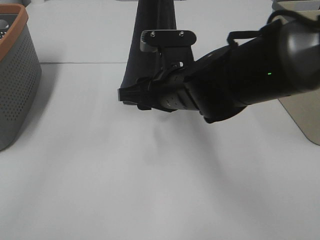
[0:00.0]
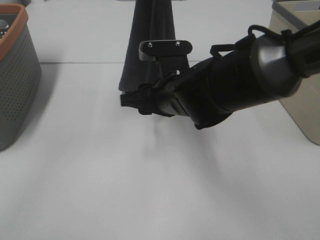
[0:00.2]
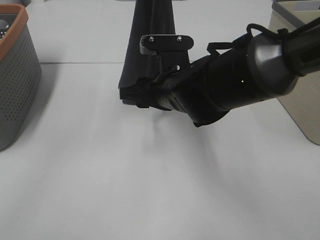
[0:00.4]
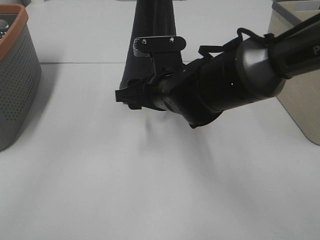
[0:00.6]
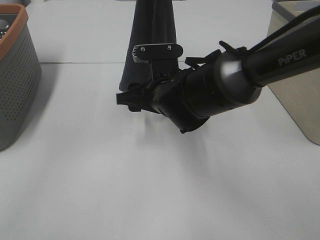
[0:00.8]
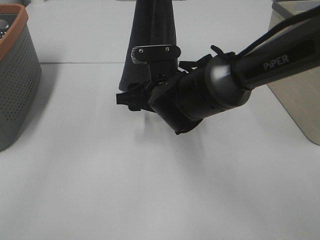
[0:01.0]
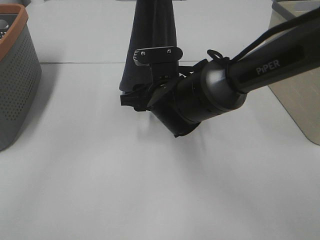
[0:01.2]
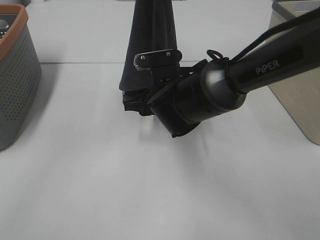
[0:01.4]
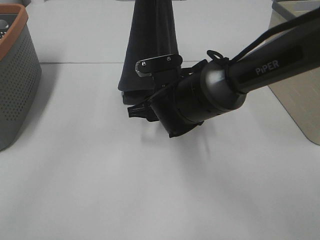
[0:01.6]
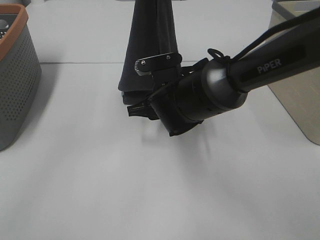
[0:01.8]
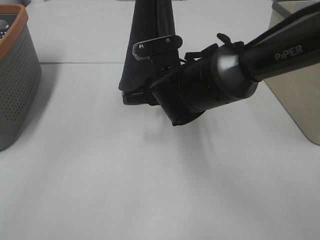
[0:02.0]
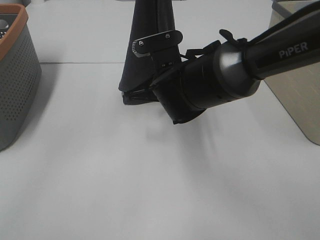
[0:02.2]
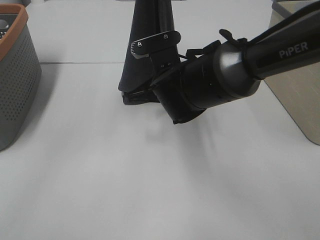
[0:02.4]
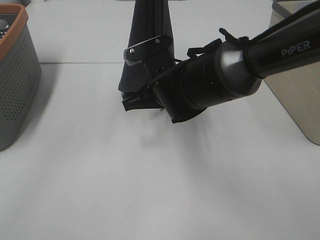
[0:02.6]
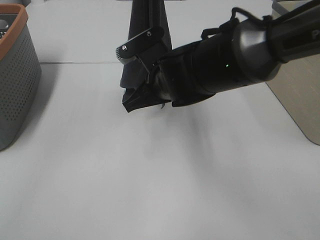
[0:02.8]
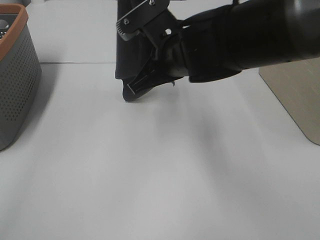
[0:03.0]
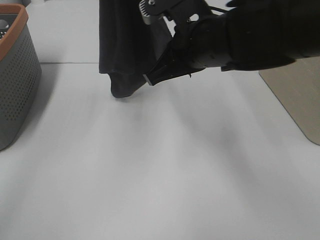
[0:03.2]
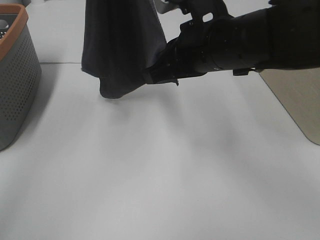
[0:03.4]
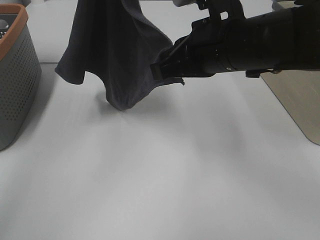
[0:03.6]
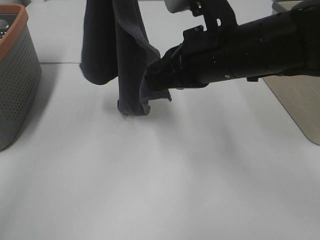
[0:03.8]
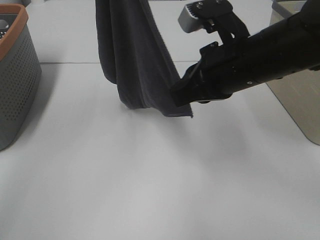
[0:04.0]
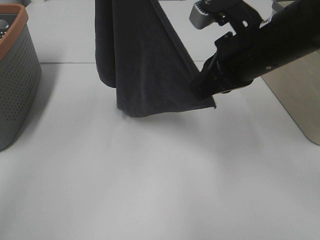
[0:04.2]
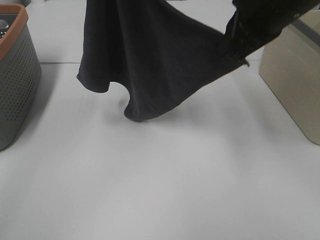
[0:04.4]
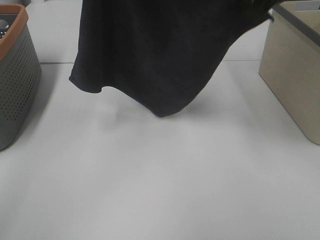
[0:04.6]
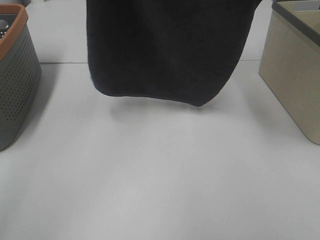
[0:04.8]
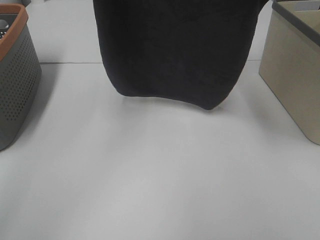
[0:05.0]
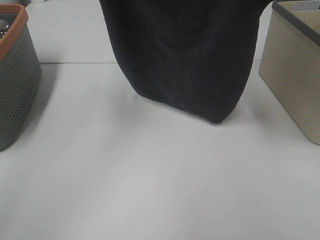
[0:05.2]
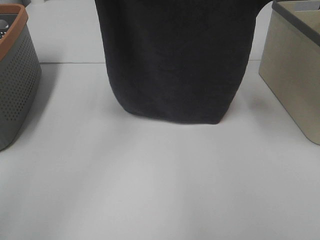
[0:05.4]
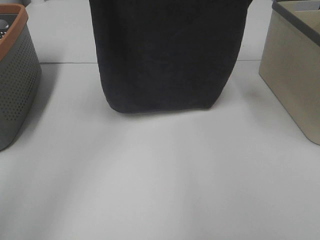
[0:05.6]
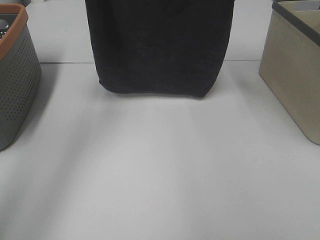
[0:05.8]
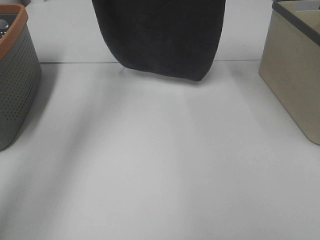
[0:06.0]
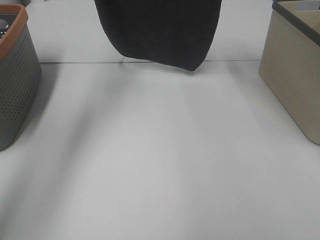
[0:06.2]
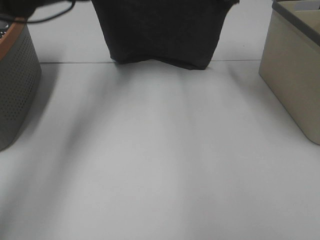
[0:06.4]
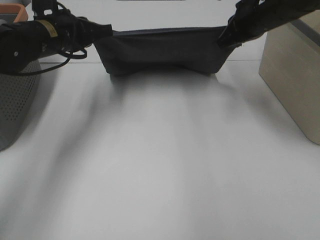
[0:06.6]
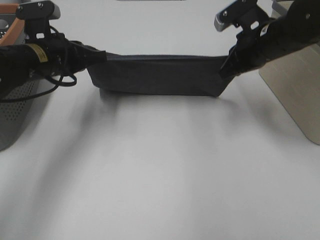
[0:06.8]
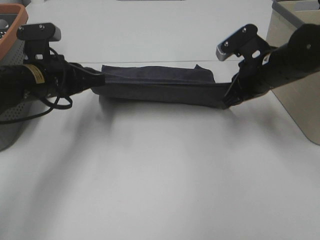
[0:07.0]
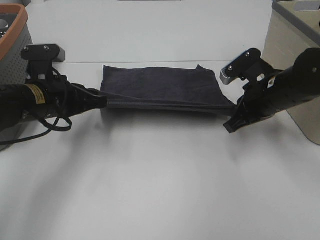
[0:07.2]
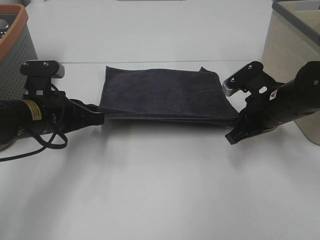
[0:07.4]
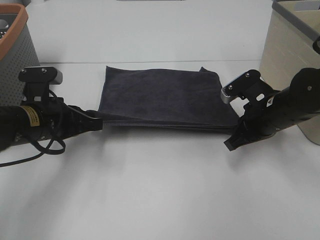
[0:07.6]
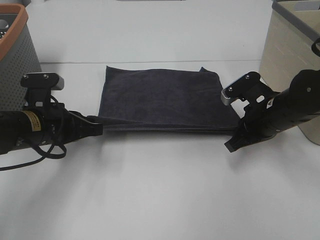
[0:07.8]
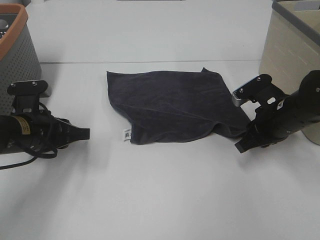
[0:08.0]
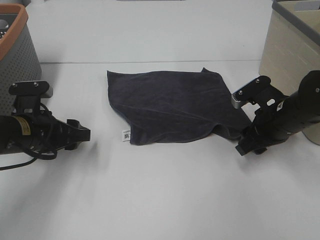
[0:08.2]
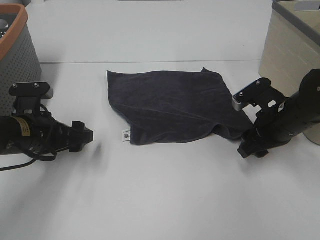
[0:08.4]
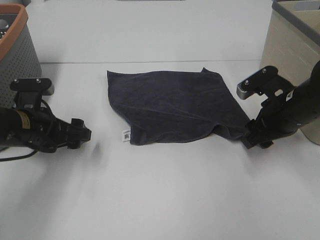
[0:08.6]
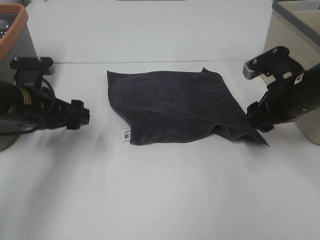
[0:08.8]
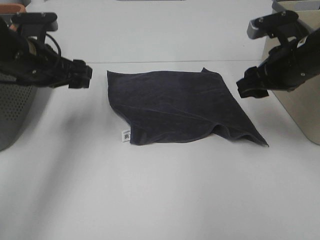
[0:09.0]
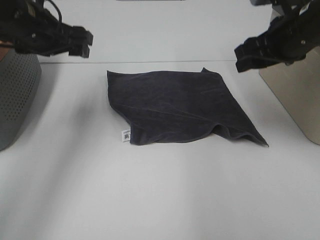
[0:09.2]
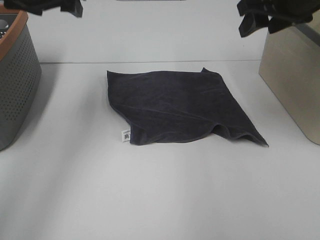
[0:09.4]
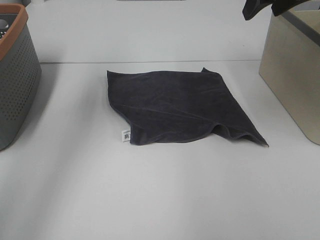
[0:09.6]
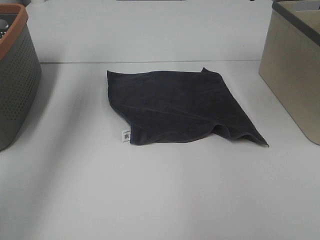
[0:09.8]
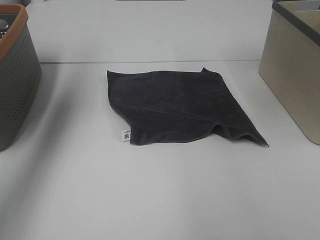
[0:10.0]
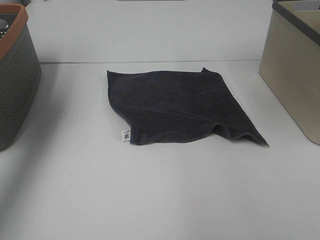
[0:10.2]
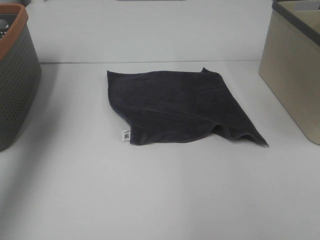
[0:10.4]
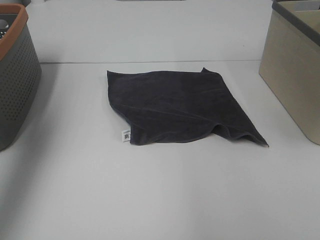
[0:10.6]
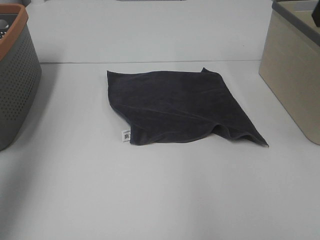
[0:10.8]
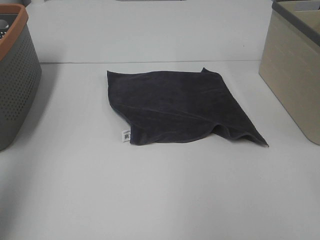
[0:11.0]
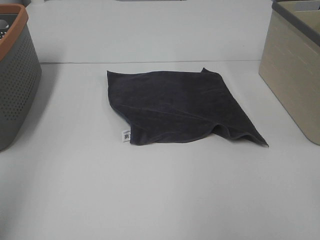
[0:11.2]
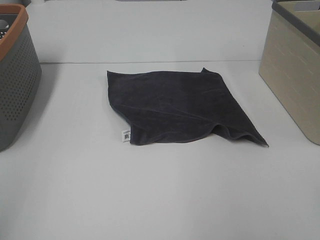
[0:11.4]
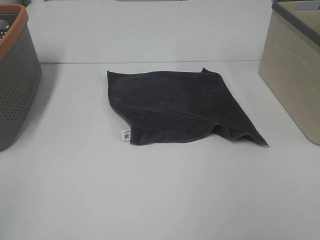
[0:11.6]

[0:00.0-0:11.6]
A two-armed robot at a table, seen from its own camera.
Task of the whole recording: Remove the towel and place it.
Step, 0:01.6 to 0:03.8: Left hand: spread the grey towel flat on the table.
Step, 0:01.6 to 0:04.2: Right hand: spread the grey towel flat on the table.
0:00.0 to 0:01.4: The right gripper goes about 5 cm downward.
0:01.4 to 0:02.8: The right gripper heads upward, covering roughly 5 cm, and closes up.
0:02.8 to 0:04.4: The left gripper is displaced to the left and upward by about 10 cm. The right gripper goes some 20 cm upward and to the right.
0:04.4 to 0:05.8: The left gripper heads downward and forward, covering approximately 15 cm. The right gripper is displaced forward by approximately 15 cm.
0:05.8 to 0:07.2: Both grippers travel together downward and backward, approximately 25 cm.
0:07.2 to 0:08.8: The left gripper opens; the right gripper opens its fingers.
0:08.8 to 0:10.2: Both grippers travel together upward, approximately 25 cm.
0:10.2 to 0:11.6: The grippers both shift backward by roughly 35 cm.

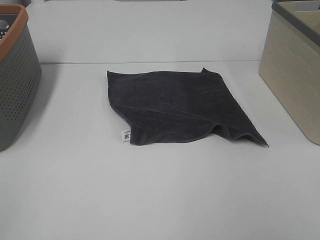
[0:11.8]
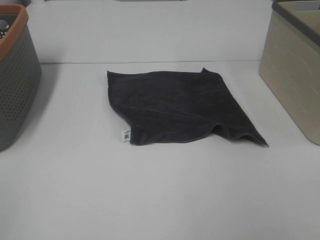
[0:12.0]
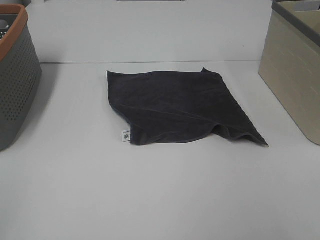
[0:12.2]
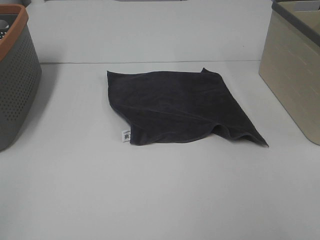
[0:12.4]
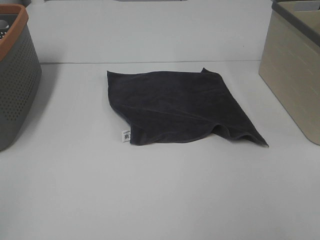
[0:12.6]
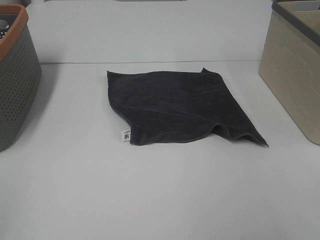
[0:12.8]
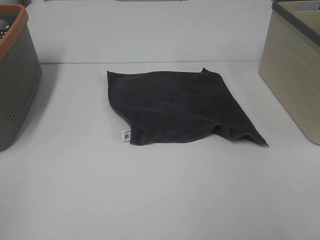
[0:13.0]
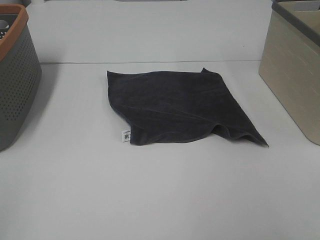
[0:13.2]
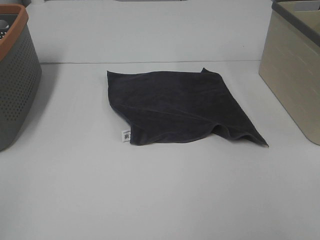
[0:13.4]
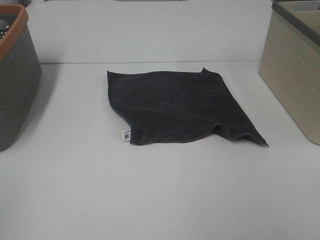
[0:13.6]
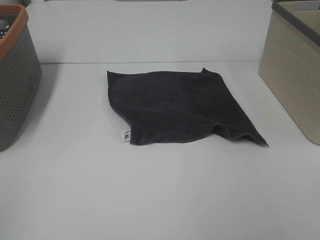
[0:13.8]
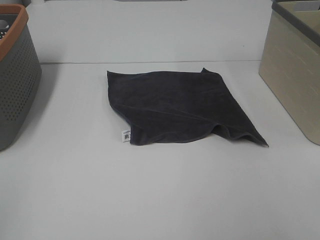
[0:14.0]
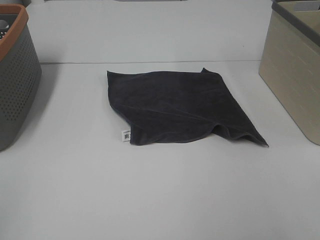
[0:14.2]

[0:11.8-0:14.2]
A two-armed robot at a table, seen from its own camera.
Task of the whole recording: Remove the towel and place it.
0:13.0 to 0:14.2: Both grippers stay put.

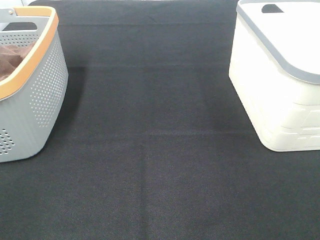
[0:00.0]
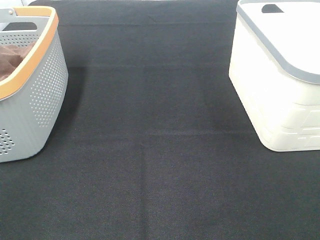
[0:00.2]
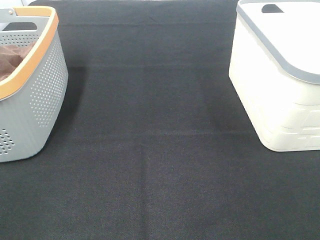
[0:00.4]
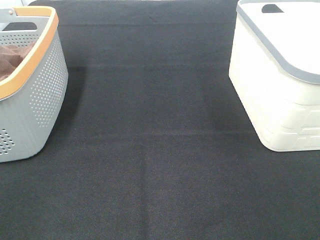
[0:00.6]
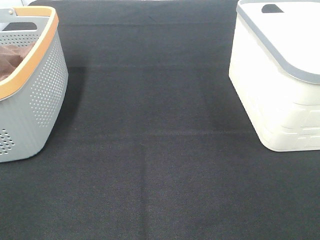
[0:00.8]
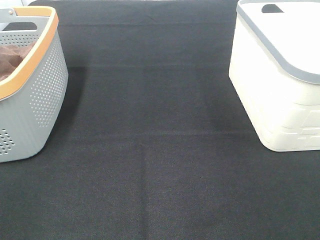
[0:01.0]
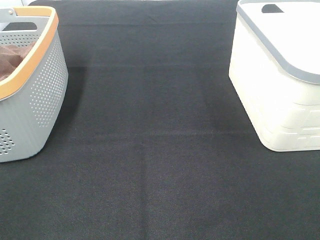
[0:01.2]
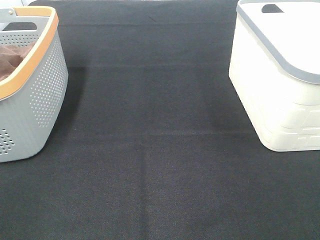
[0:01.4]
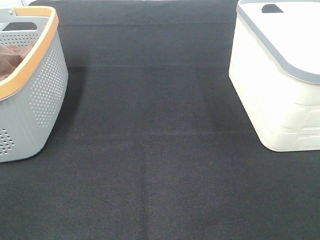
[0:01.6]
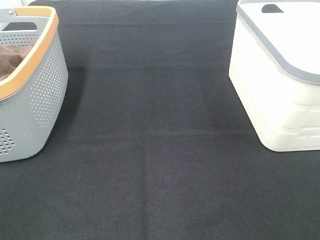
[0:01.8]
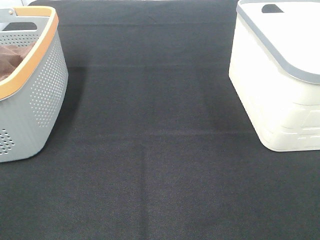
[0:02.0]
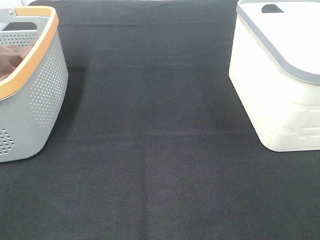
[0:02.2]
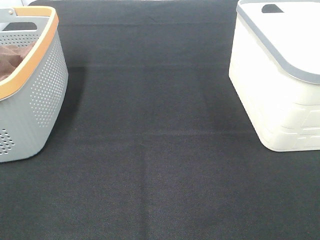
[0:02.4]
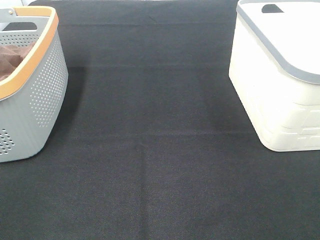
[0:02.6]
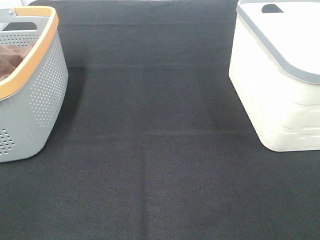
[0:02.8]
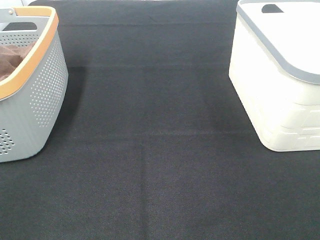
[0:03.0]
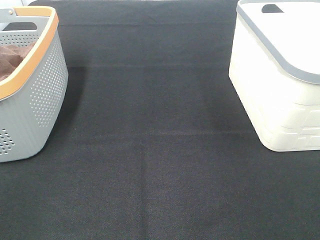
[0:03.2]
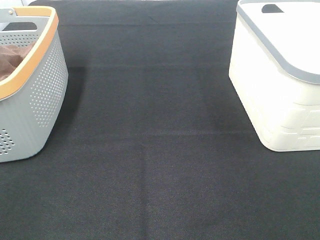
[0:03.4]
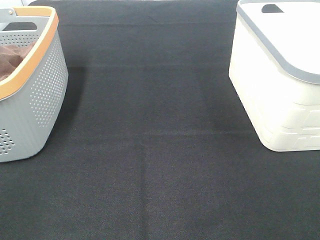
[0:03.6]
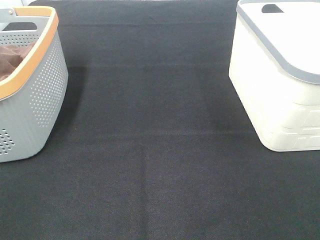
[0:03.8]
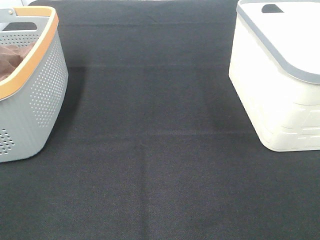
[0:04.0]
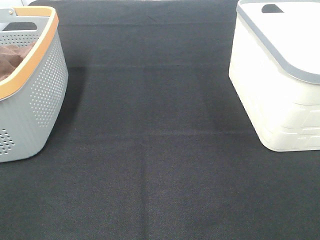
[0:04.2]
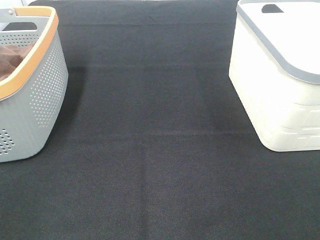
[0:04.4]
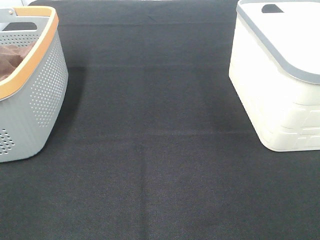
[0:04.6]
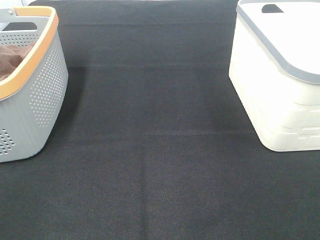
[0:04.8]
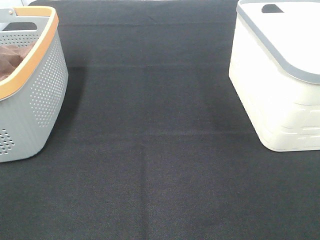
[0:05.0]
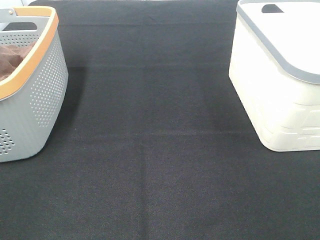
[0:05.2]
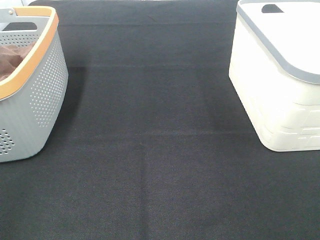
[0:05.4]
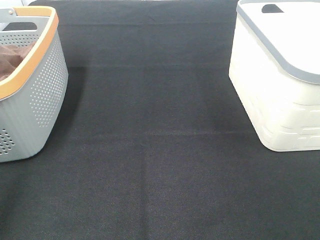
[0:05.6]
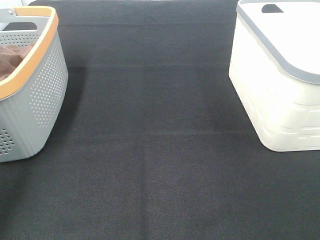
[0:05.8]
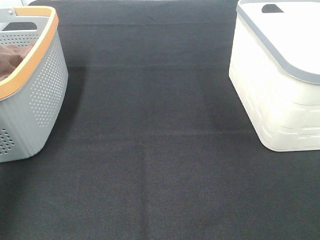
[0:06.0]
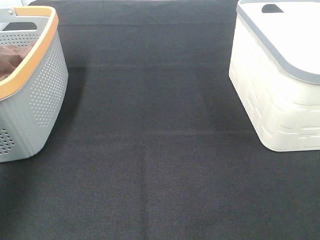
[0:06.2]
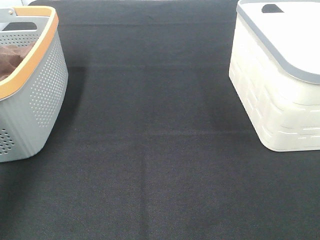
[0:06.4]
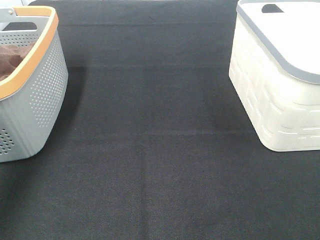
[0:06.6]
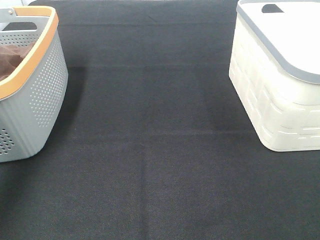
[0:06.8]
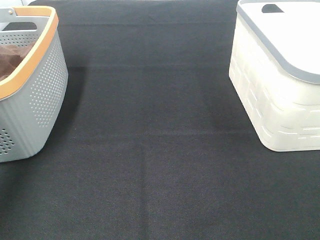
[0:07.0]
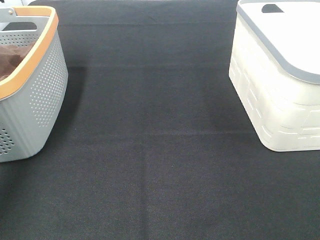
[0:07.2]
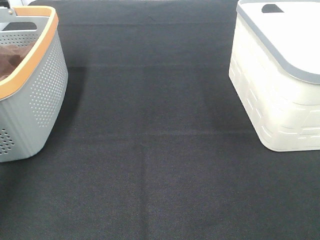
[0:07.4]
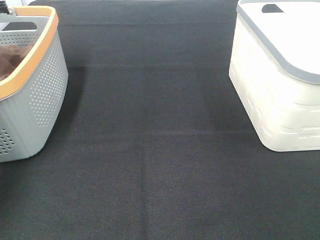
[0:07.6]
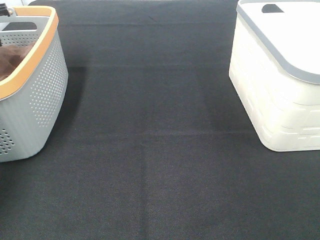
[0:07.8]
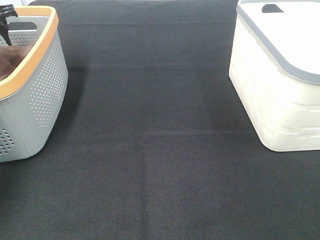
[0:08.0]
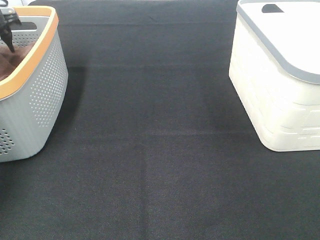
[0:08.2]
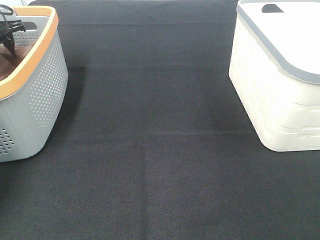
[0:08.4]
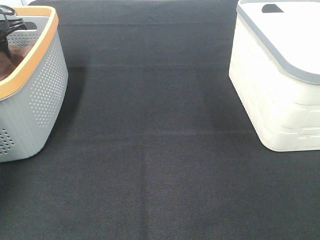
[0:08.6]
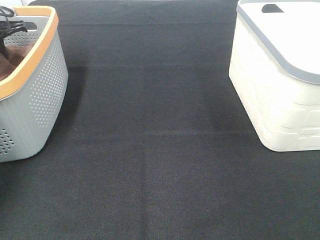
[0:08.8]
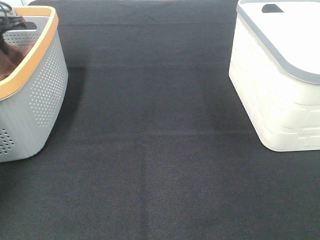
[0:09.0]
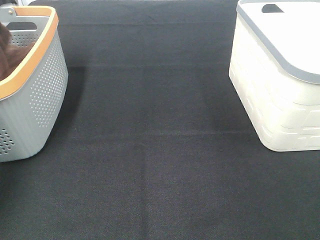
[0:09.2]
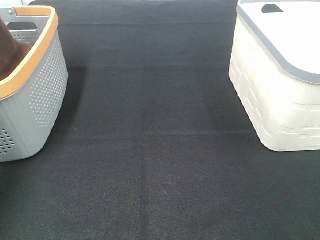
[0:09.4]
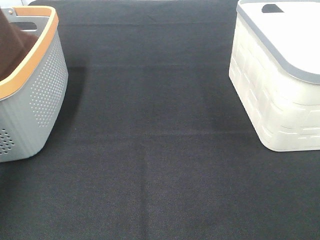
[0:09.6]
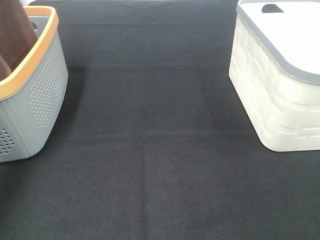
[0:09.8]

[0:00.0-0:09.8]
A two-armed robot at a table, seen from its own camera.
Task of the whole recording: Remove the towel and place it.
0:00.0 to 0:04.2: The two grippers keep their place.
0:04.2 to 0:05.6: The left gripper travels forward by some 10 cm.
0:07.0 to 0:08.4: The left gripper shifts about 15 cm downward and forward.
0:08.4 to 0:09.8: The left gripper moves upward and backward, roughly 25 cm, and closes its fingers.
